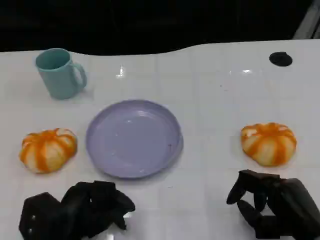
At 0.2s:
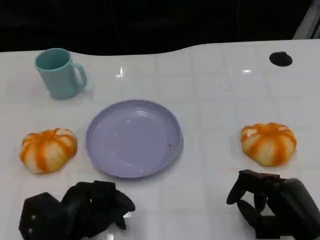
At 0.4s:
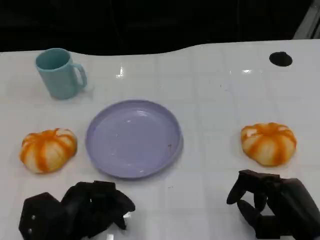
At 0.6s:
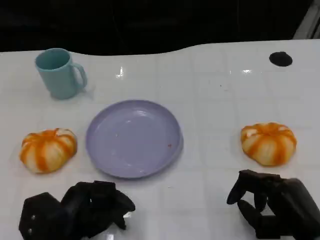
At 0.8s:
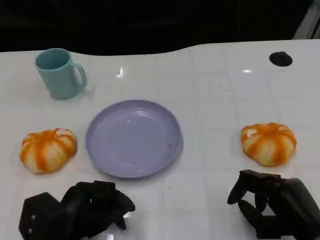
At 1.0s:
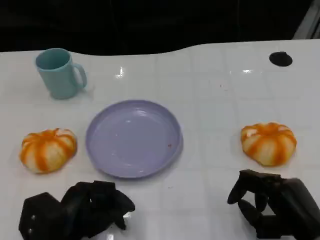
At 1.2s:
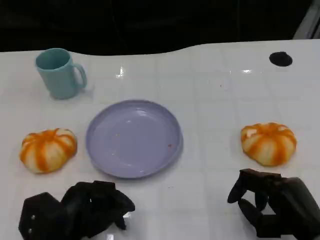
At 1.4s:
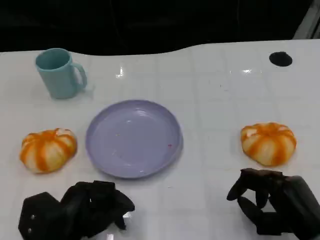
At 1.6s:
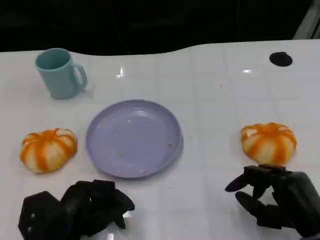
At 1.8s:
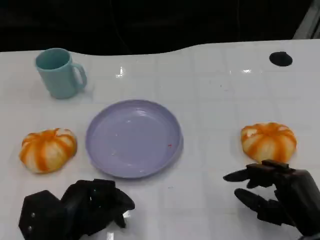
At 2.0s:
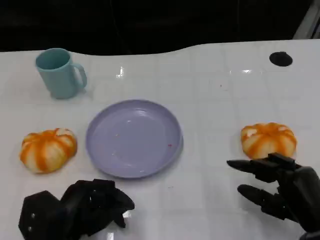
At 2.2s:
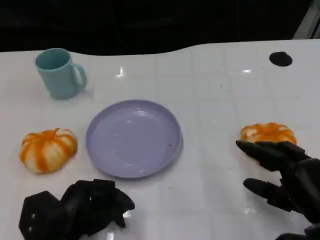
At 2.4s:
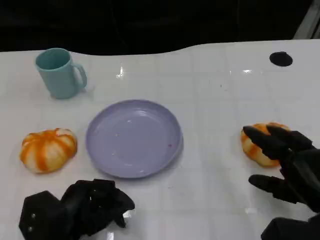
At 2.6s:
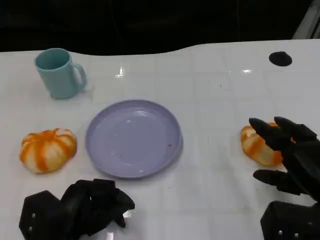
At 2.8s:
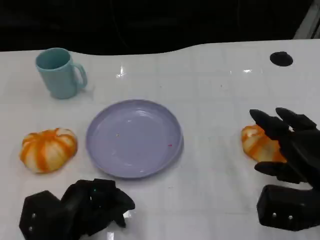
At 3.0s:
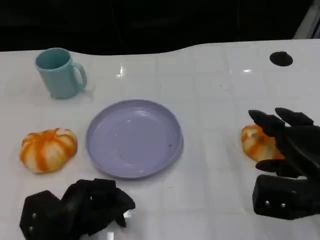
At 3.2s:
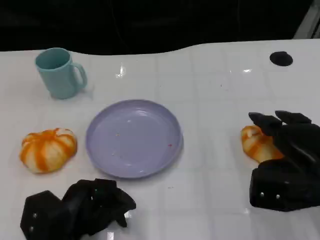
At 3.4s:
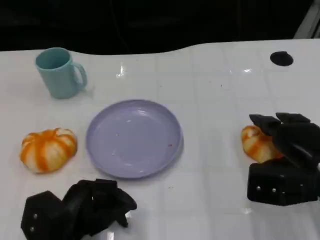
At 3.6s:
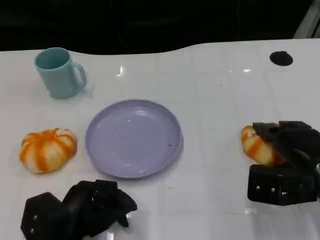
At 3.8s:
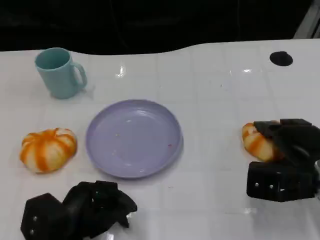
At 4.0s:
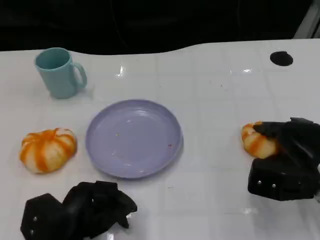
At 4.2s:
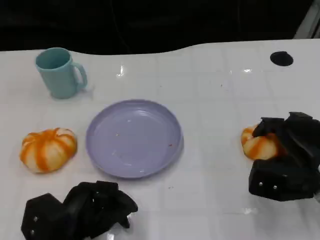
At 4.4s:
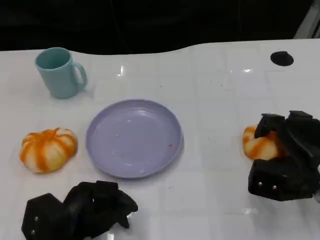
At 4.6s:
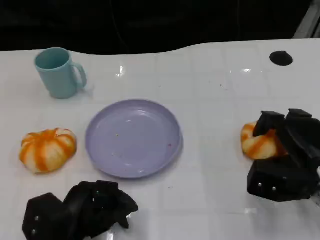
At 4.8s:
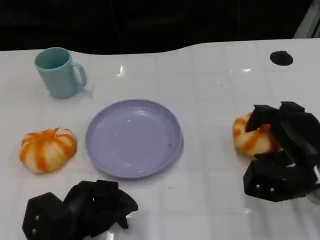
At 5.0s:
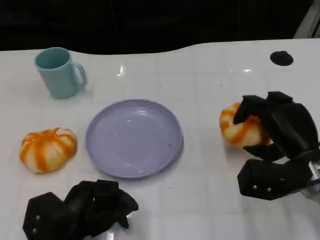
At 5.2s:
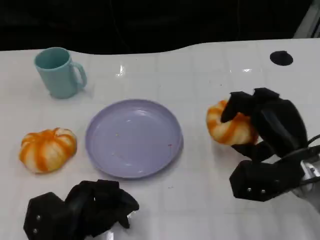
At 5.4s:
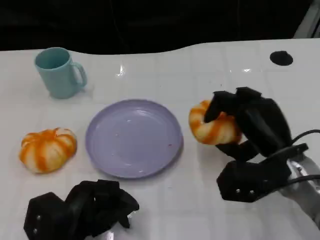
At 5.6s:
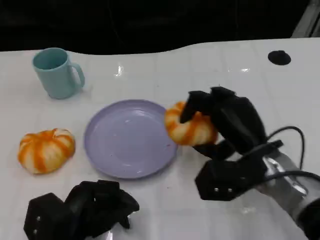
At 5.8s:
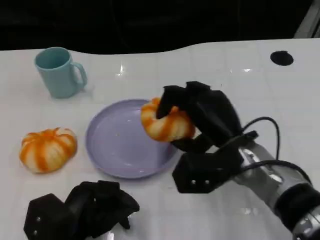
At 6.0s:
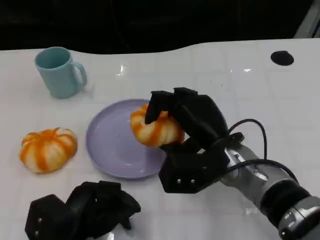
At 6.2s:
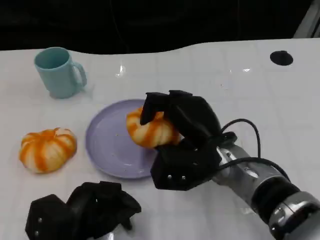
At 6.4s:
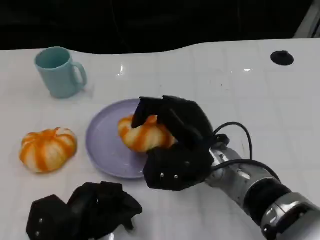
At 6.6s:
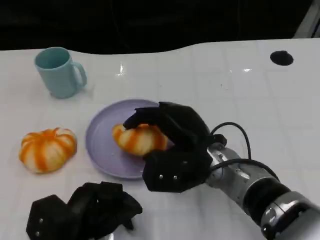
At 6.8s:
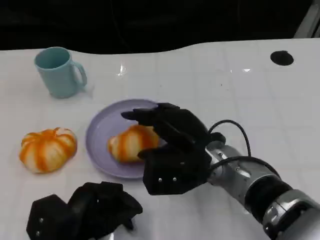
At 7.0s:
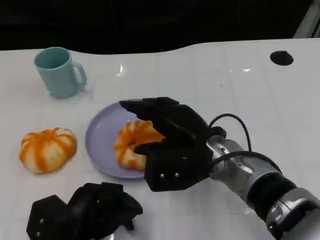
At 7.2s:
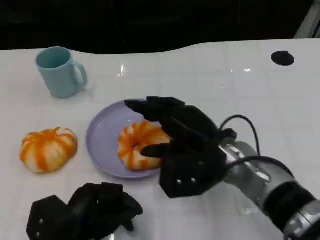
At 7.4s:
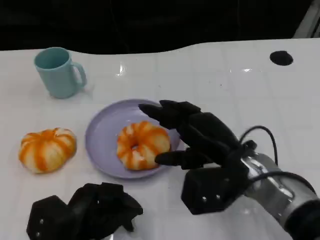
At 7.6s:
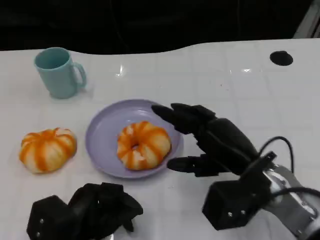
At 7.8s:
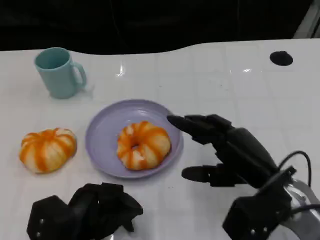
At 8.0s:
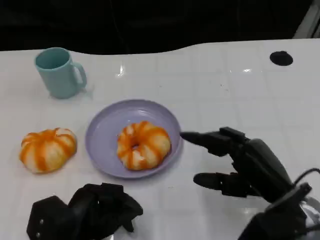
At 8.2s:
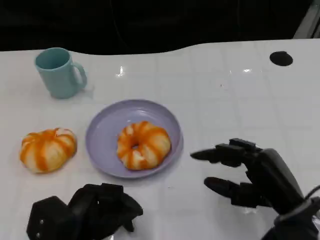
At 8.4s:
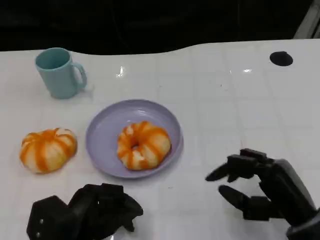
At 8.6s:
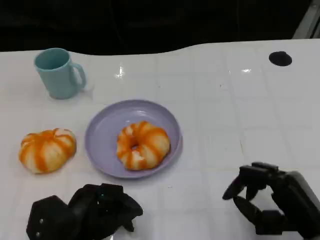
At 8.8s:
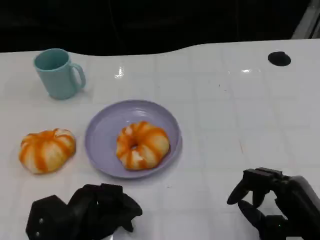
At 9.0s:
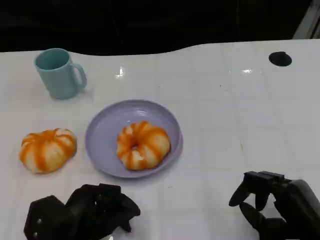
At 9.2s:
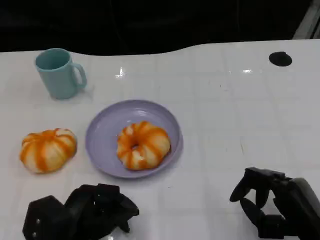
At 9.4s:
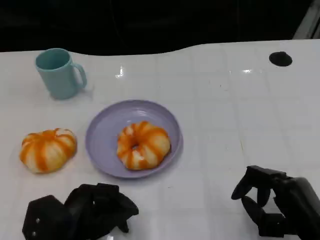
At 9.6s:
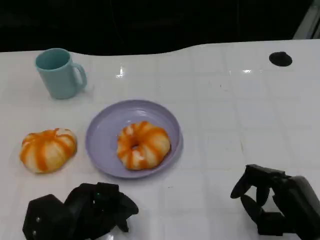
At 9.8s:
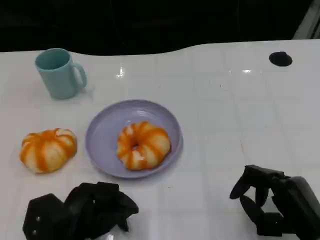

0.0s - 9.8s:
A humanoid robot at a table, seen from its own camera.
Task of the whole recording: Grasp the bread from the table and place it into the plate.
0.0s - 1.4s: Neither hand changes place.
1.4s - 2.8s: The right hand is displaced forward and upward by some 5 cm.
2.8s - 4.2s: The right hand ends up approximately 5 cm from where it was.
4.2s - 5.6s: The right hand shifts some 10 cm to the left.
5.6s - 7.0s: The right hand heads to the left, covering some 5 cm.
7.0s - 8.4s: The right hand is displaced to the right and backward by some 15 cm.
8.4s - 9.8s: There are only small adjustments of the hands.

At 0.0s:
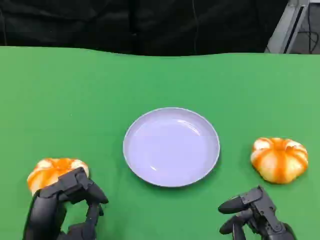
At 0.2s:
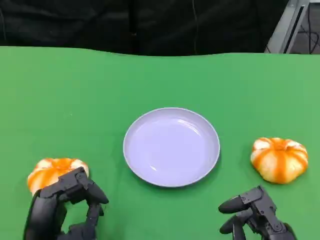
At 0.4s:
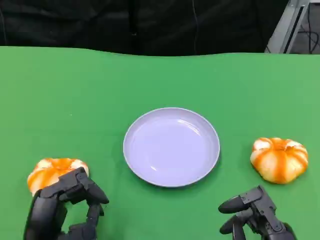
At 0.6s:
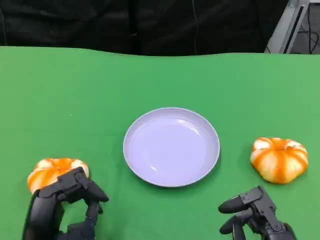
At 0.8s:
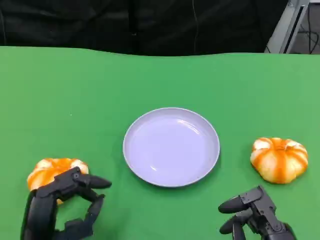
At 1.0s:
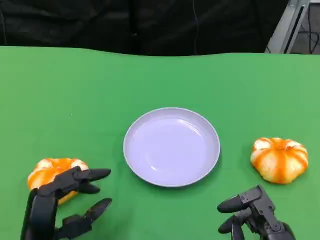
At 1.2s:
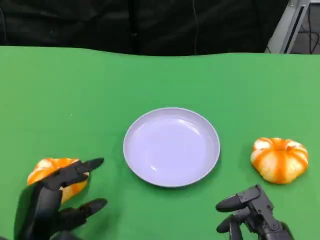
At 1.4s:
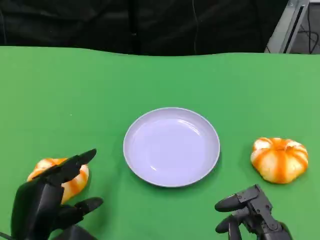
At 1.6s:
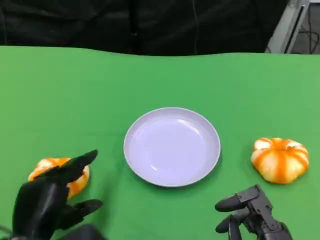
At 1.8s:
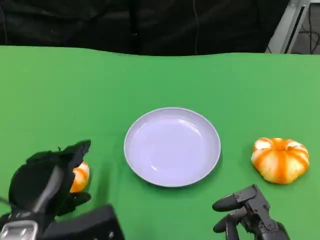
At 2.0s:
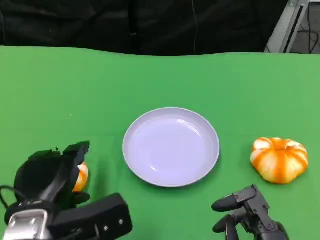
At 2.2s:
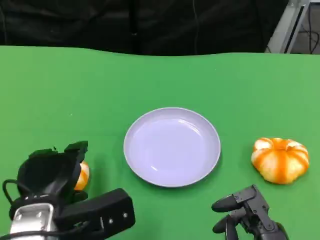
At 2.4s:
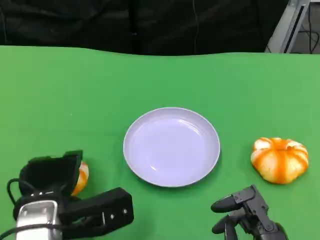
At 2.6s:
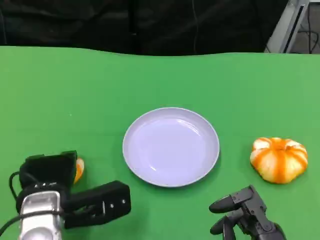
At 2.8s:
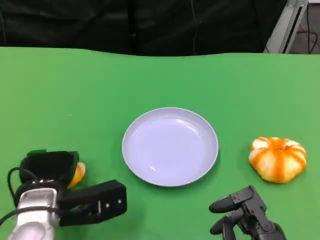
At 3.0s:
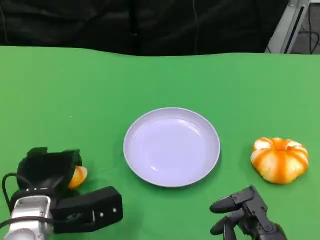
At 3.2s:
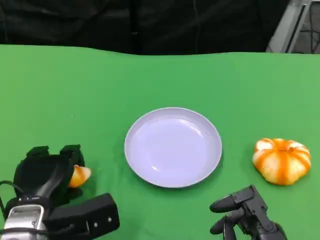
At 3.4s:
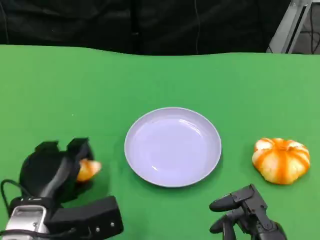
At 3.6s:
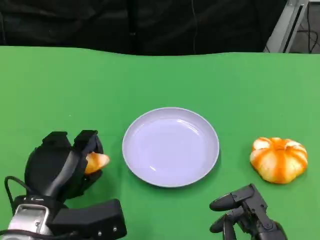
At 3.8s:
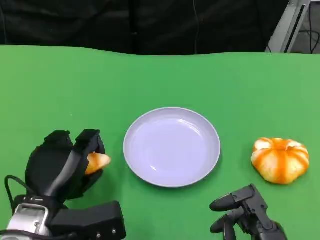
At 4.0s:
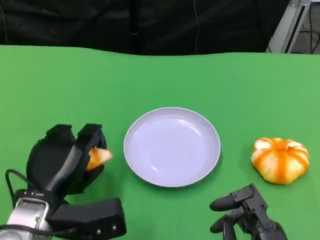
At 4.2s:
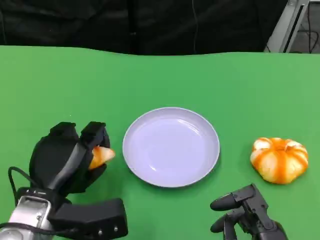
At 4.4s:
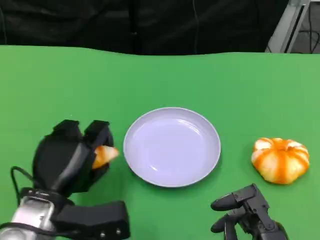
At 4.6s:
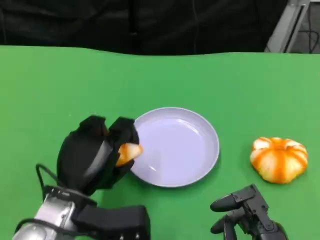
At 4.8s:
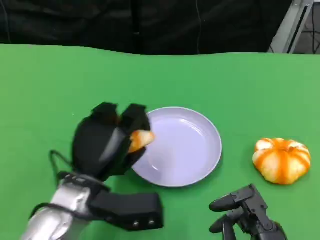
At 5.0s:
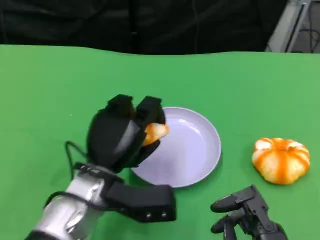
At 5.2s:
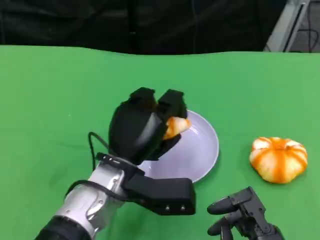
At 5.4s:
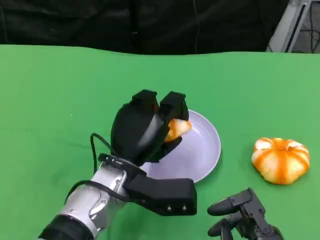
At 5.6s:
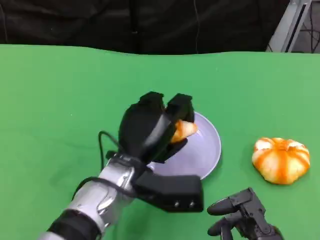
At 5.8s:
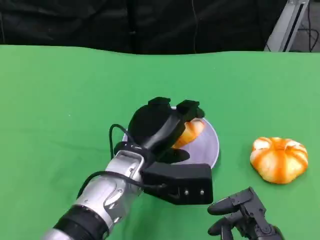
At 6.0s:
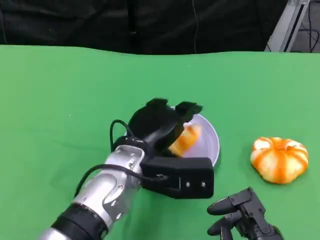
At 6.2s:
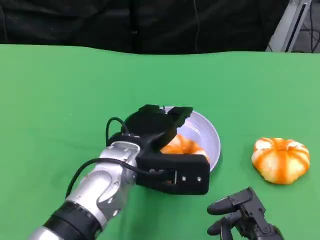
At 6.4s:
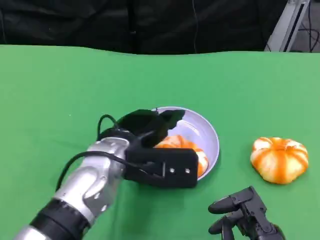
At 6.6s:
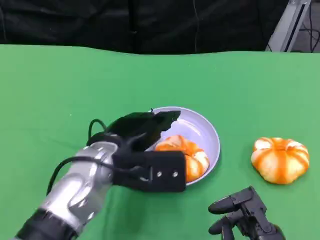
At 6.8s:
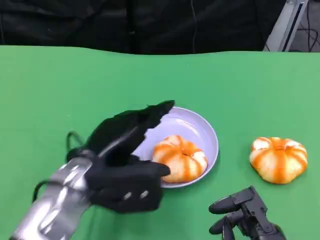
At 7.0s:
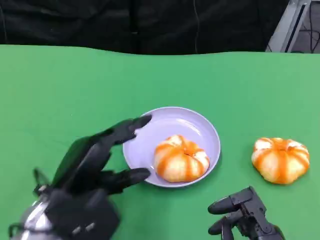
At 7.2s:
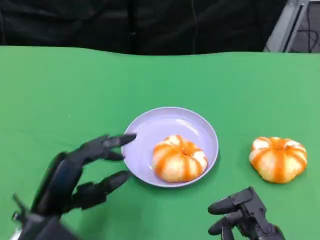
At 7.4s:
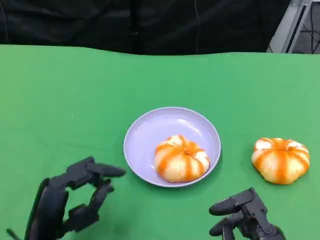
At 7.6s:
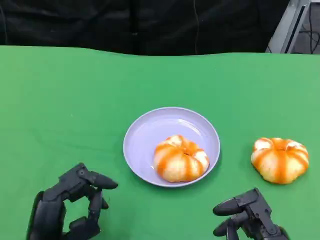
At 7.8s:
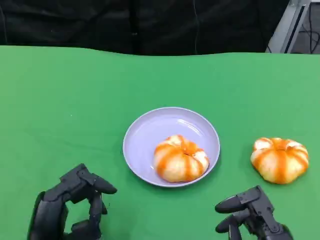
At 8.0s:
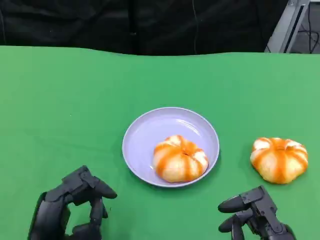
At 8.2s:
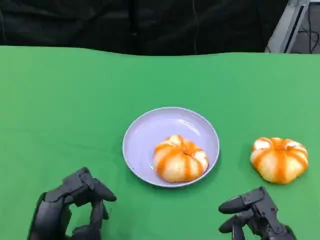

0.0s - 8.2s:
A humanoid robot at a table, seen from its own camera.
Task of the whole recording: Grasp the bread from the table and place it into the plate.
3.2s - 5.0s: The left hand moves to the right, approximately 10 cm.
6.6s - 8.2s: The left hand goes about 15 cm backward, to the left and downward.

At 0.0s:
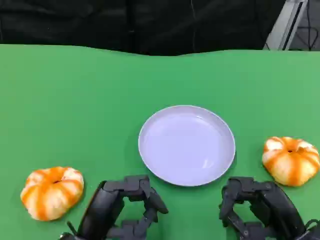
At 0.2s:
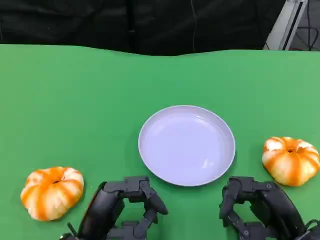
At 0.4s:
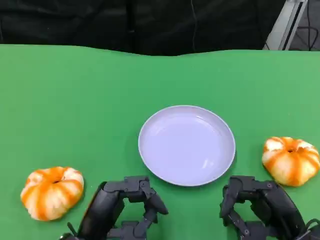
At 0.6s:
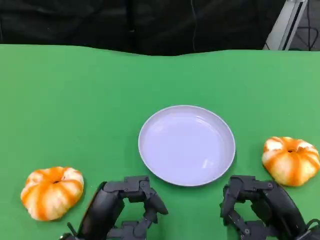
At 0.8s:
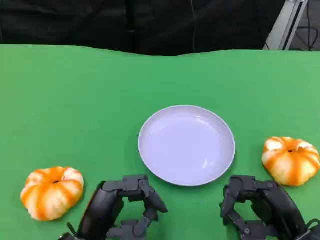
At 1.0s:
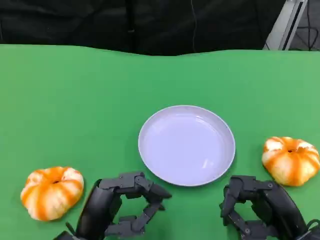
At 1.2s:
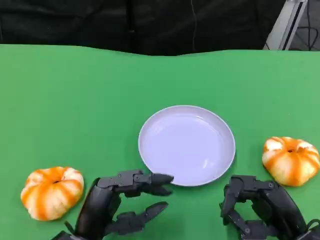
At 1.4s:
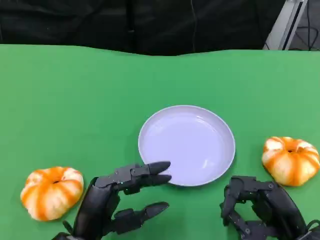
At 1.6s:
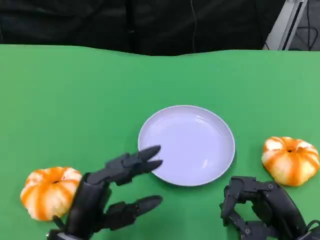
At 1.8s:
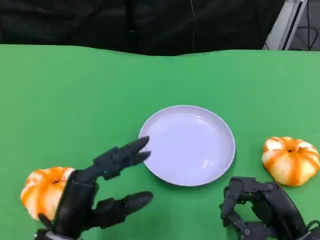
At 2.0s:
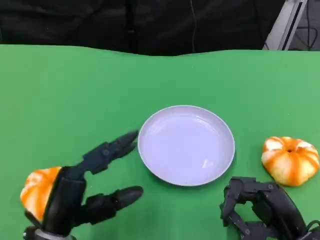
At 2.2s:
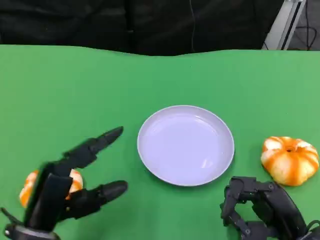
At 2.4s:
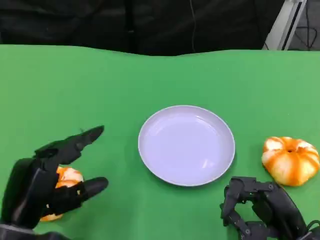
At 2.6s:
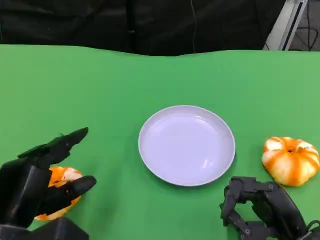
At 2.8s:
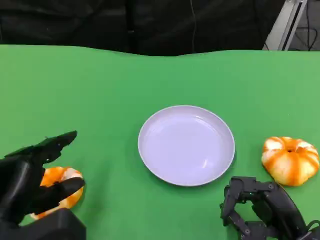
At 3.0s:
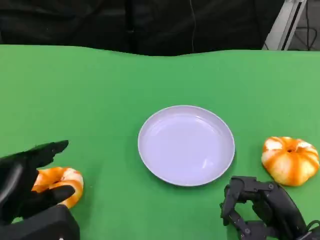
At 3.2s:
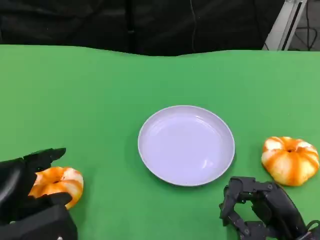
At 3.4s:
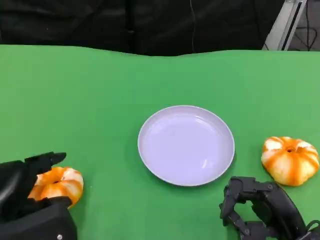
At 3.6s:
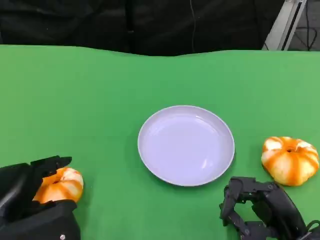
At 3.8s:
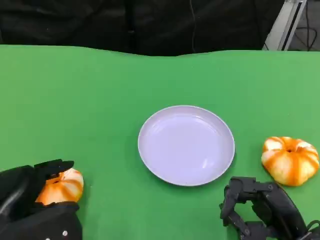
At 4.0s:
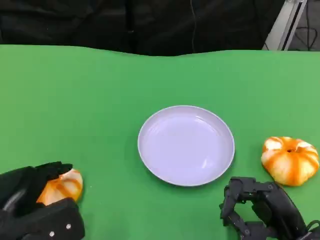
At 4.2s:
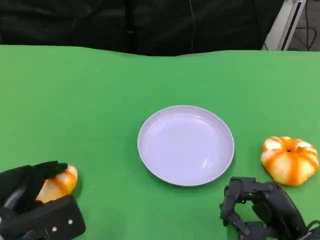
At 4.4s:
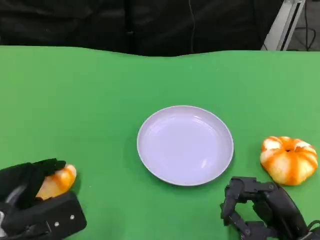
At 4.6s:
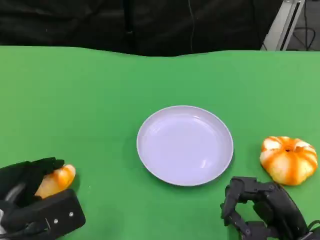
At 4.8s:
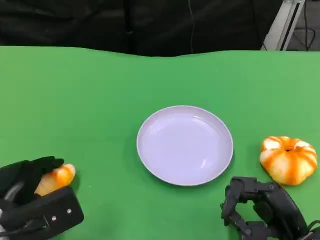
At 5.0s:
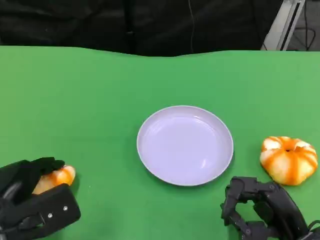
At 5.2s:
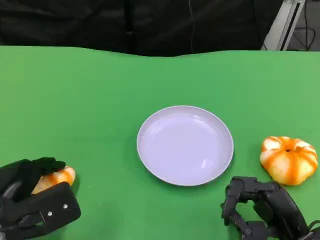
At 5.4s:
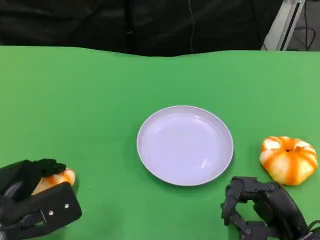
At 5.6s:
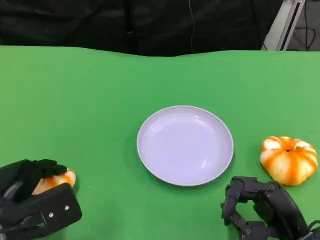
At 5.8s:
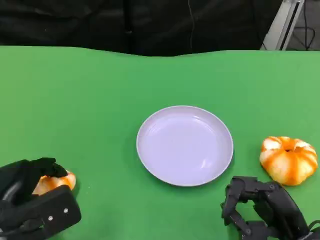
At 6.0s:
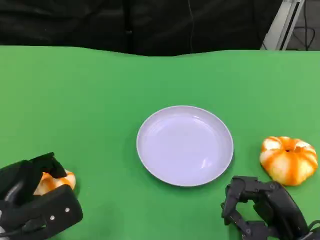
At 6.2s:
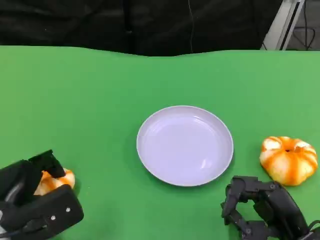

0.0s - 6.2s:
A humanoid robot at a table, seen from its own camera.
Task of the whole recording: Grasp the bread from the table and place it into the plate.
0.0s - 1.6s: The hands make only small movements.
1.6s - 3.2s: The left hand shifts approximately 10 cm to the left and upward.
3.2s - 4.6s: The left hand changes place by roughly 5 cm.
4.6s - 6.2s: There are only small adjustments of the hands.
